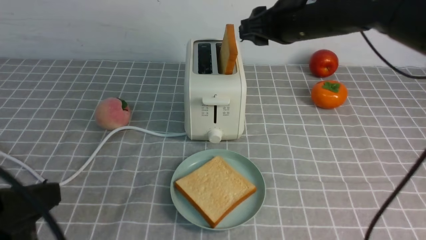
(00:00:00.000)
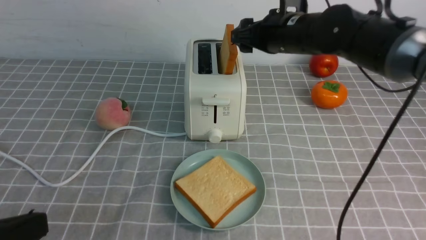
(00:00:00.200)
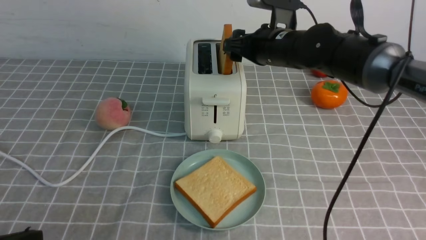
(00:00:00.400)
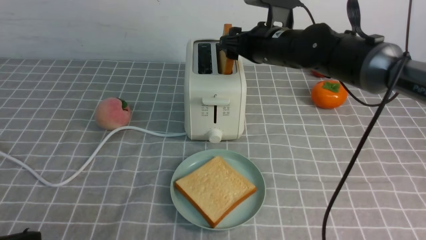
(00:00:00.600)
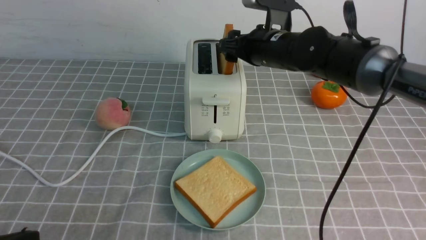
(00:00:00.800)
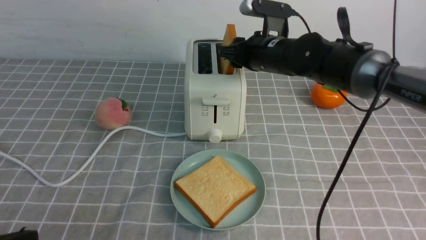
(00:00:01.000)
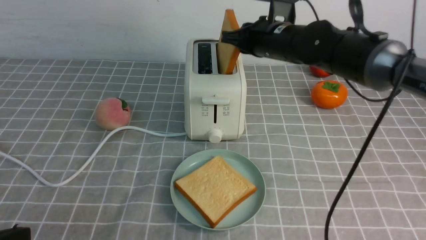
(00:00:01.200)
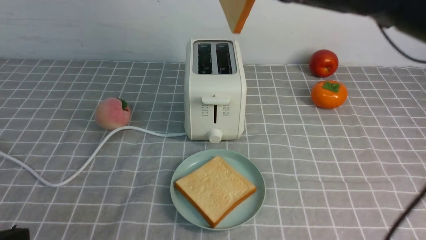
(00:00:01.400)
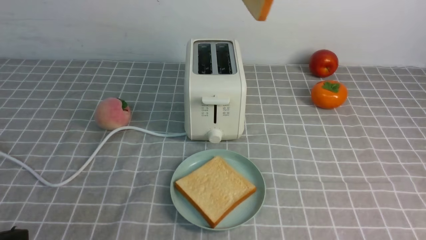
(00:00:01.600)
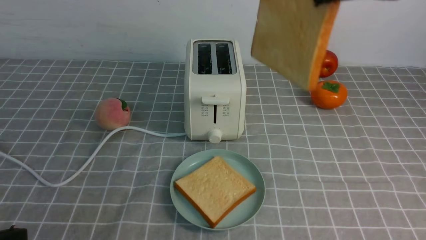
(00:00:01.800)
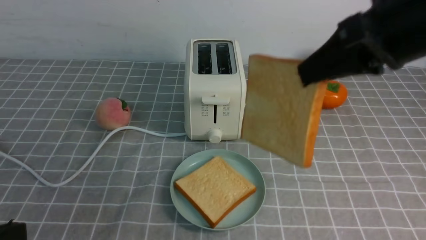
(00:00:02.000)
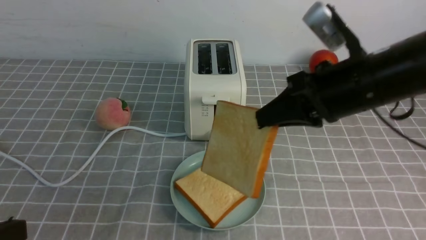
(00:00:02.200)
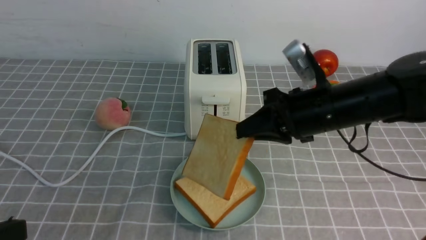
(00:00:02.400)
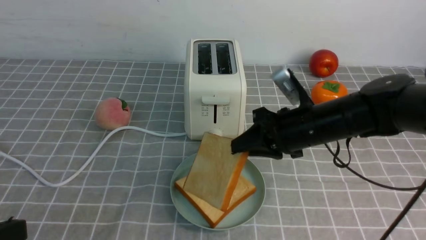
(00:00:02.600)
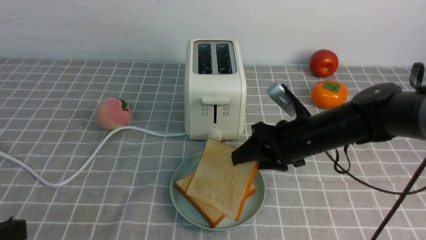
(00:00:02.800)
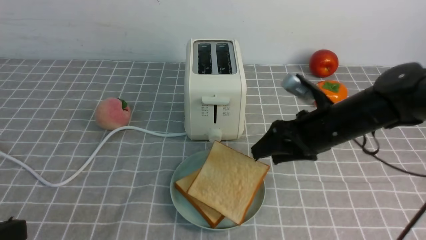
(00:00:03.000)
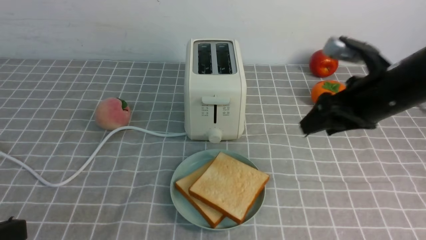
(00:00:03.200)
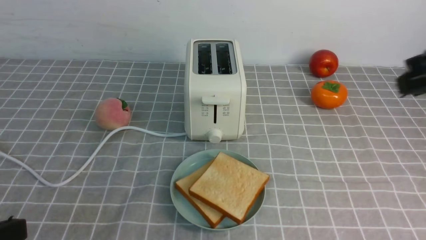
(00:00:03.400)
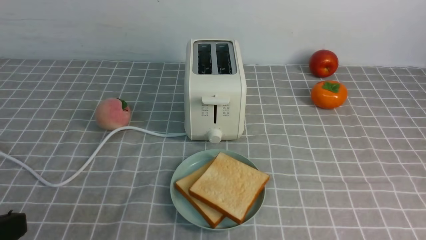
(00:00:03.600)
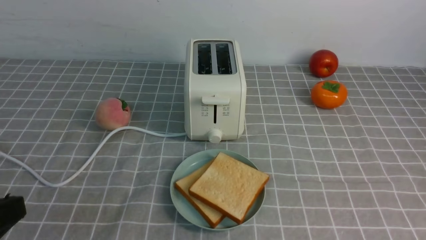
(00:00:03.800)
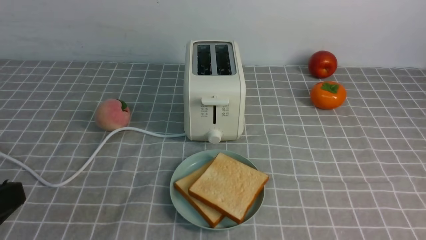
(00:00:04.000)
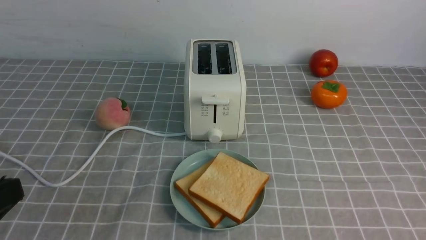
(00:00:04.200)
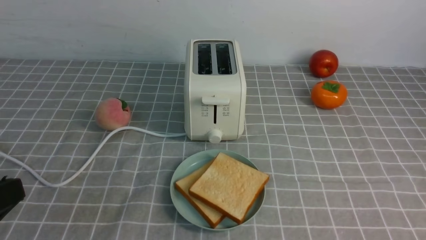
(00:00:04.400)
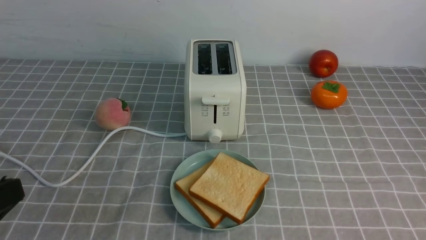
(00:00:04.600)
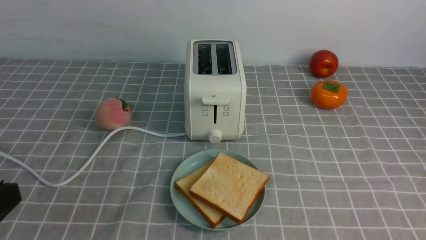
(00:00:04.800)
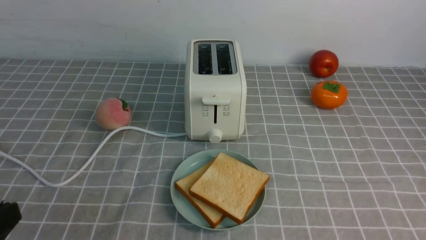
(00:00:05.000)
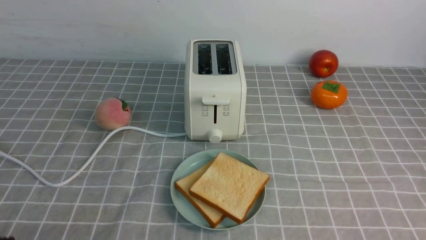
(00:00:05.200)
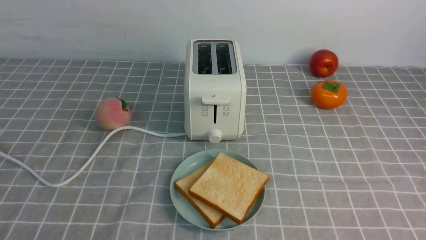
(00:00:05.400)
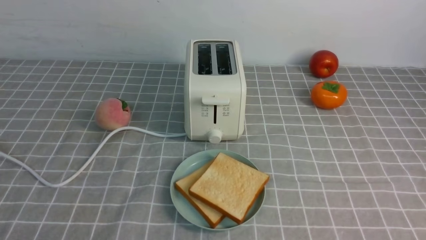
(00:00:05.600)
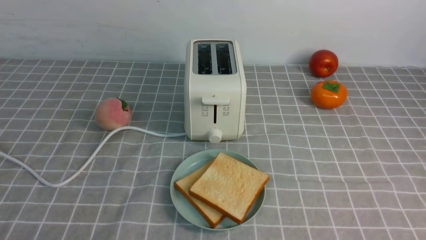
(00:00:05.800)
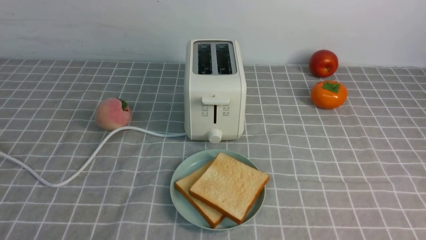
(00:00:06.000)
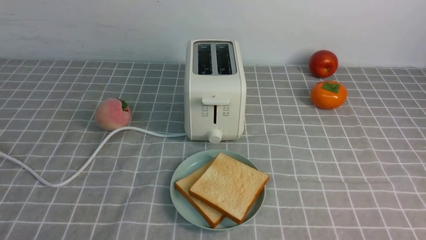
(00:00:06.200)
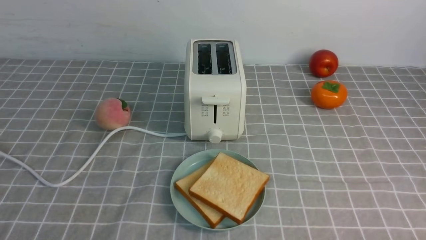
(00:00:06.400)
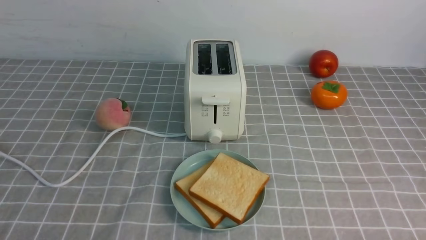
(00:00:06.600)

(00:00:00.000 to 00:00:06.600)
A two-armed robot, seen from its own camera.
Task of the whole recording: take toasted bread from bread machine on grey coffee table place on plate.
Step, 00:00:00.000 - 00:00:01.200: use the right arm to take out a slice of bread.
Step, 00:00:01.400 - 00:00:03.000: use the right arm to put a slice of bread into the plate.
00:00:00.000 - 00:00:01.600: The right gripper is displaced upward and backward by approximately 15 cm, and closes up.
00:00:01.600 - 00:00:03.200: The right gripper goes about 15 cm downward and to the right, and opens.
00:00:03.200 - 00:00:05.000: The right gripper moves backward, approximately 25 cm, and closes its fingers.
00:00:05.000 - 00:00:06.600: The left gripper shifts about 10 cm downward.
